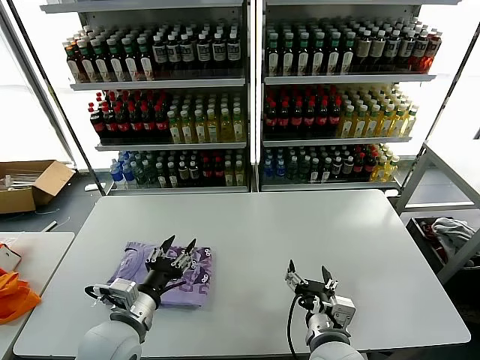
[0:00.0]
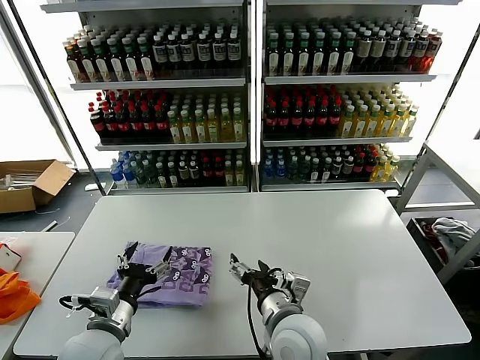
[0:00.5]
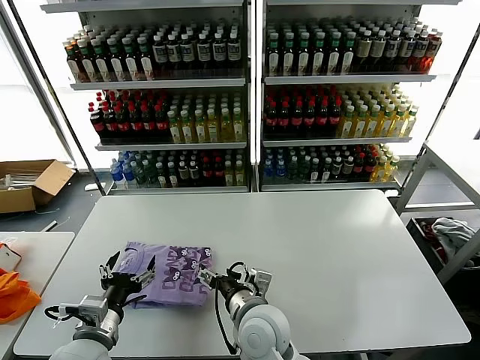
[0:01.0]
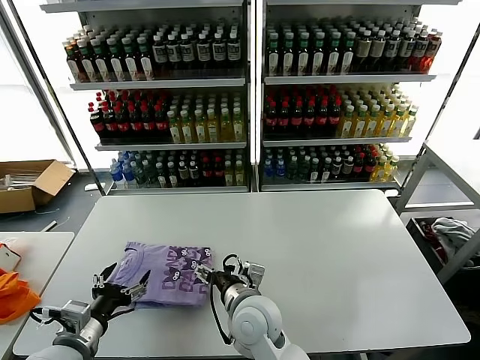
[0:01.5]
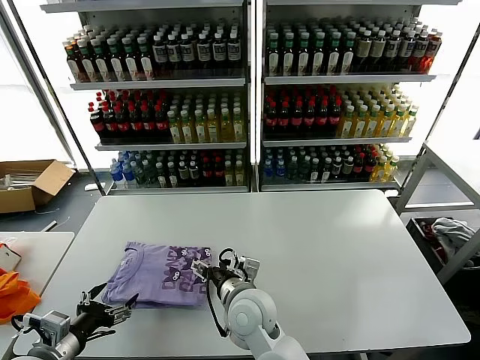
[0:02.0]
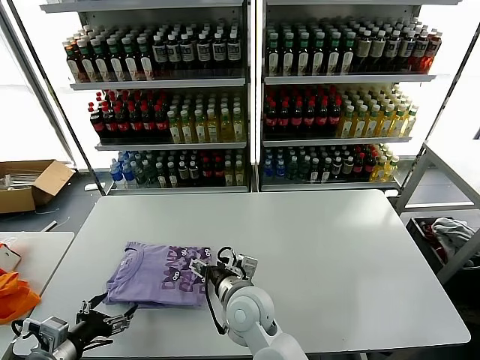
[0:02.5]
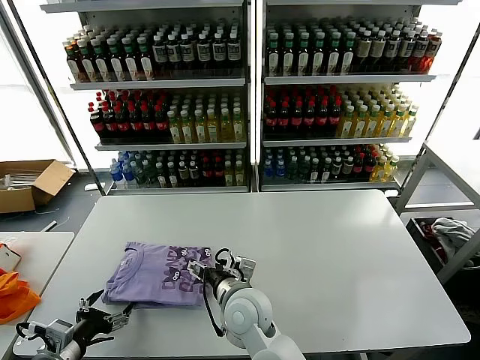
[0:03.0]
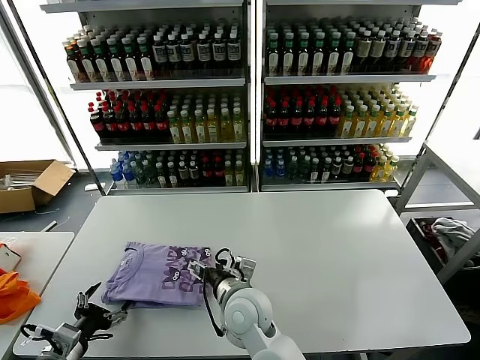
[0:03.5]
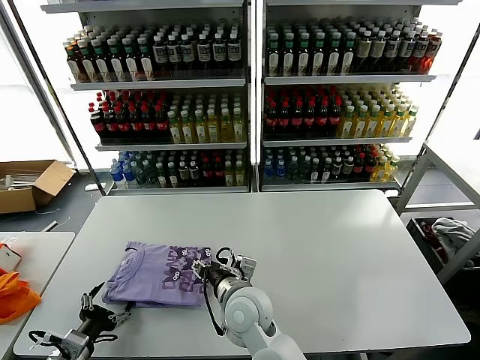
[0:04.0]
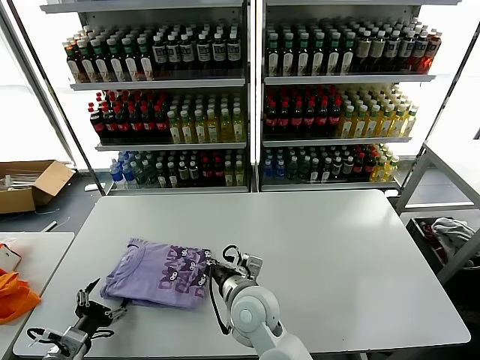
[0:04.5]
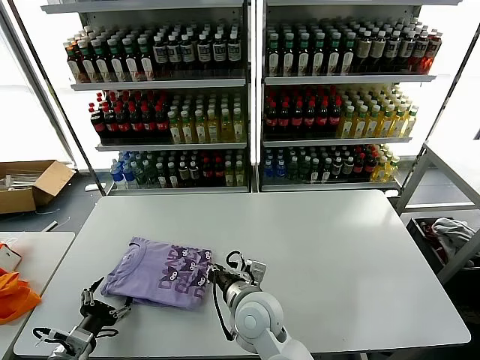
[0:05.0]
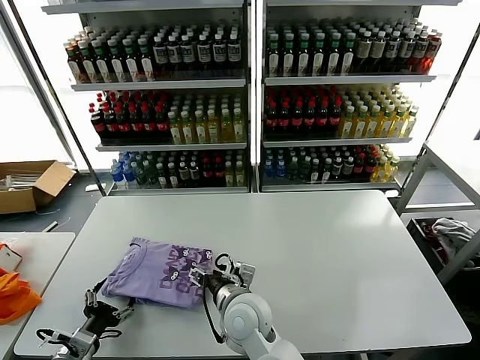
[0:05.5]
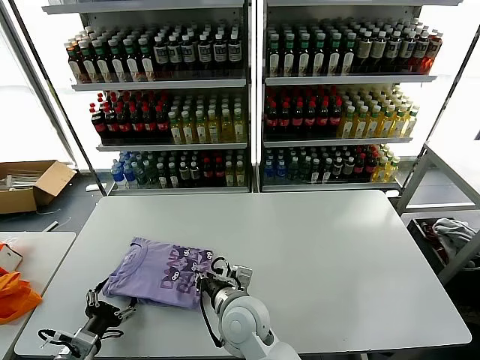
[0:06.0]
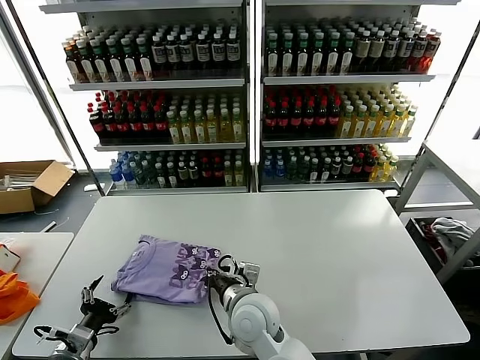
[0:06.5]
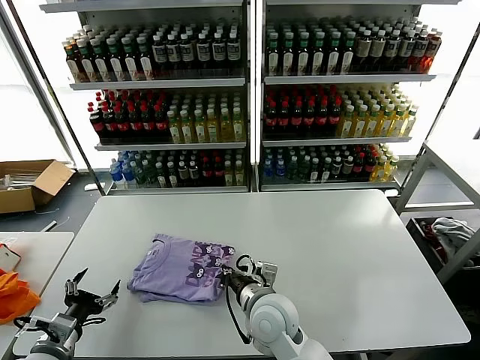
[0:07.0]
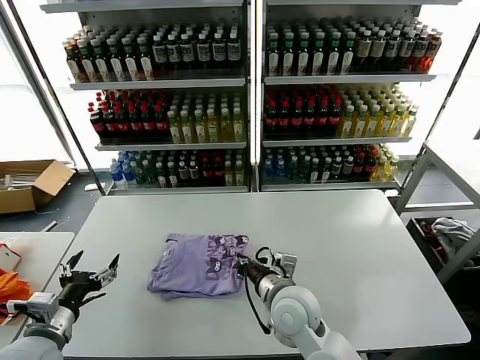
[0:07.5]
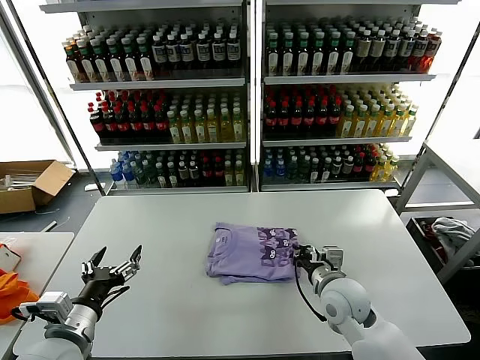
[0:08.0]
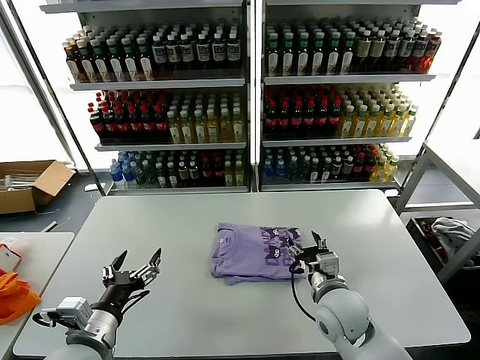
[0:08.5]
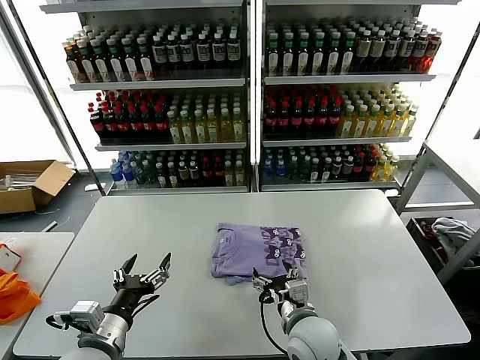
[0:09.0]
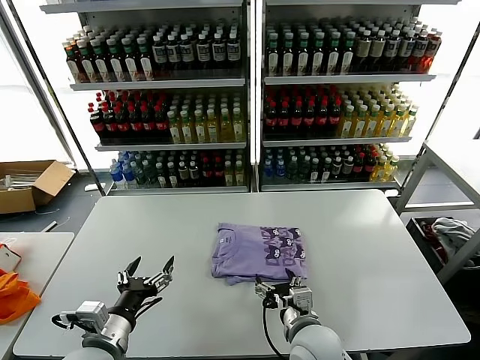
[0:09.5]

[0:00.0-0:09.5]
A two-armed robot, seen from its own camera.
Task of the whole recording: fold and organize the clothes.
0:00.0 to 0:02.0: The right gripper goes approximately 15 cm to the left and forward; the left gripper is displaced to the left and backward by some 15 cm, and opens up.
0:02.0 to 0:04.0: The left gripper shifts about 5 cm downward.
0:04.0 to 0:05.5: The right gripper closes, then opens again.
0:05.5 to 0:07.5: The right gripper travels to the right by roughly 10 cm, and closes, while the left gripper shifts some 10 cm upward.
0:07.5 to 0:09.5: The right gripper shifts roughly 5 cm backward, and opens its fingers. The left gripper shifts about 10 cm to the right.

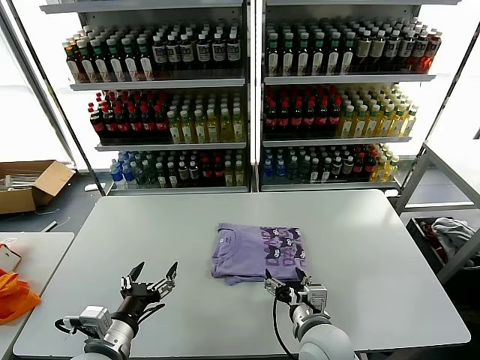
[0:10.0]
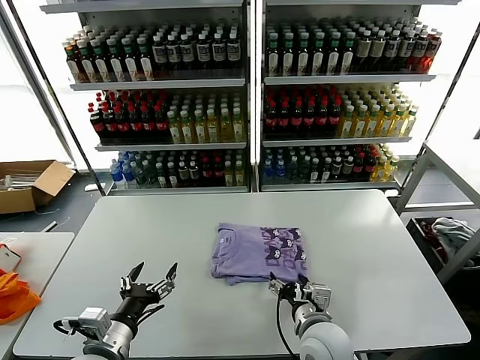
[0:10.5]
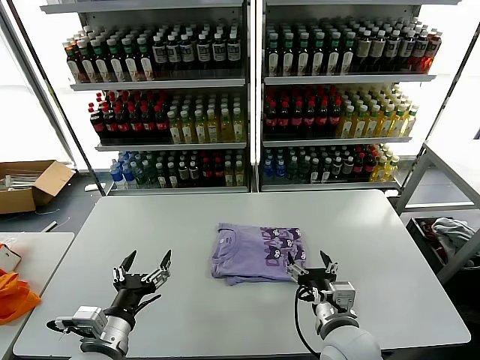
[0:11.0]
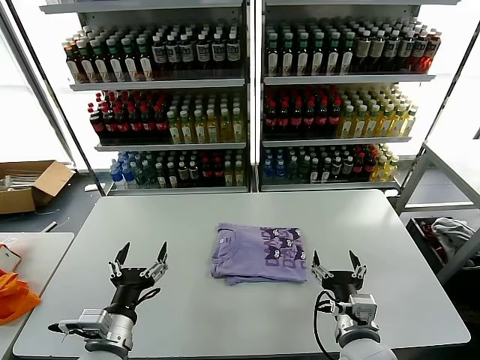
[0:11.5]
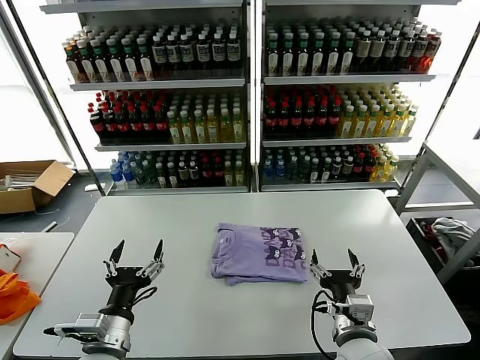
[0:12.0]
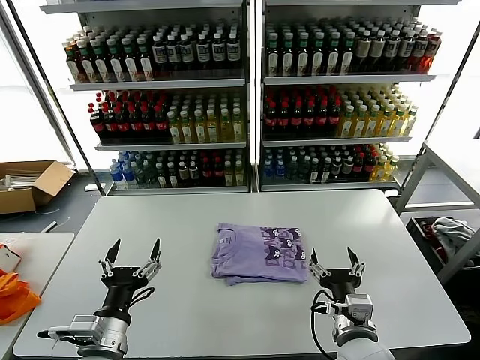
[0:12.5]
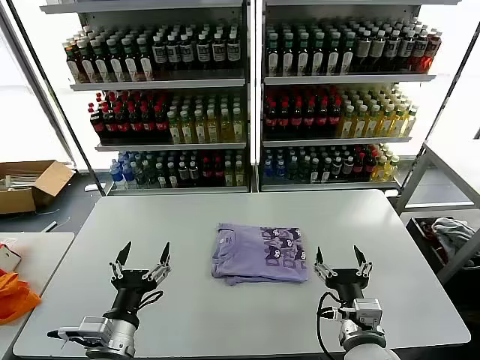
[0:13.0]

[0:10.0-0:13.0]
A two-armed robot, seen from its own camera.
Task of the whole recording: fold and organize the clothes.
0:10.0 to 0:11.5: The right gripper is displaced to the right by approximately 5 cm.
0:11.5 to 0:13.0: The grippers make only small movements.
